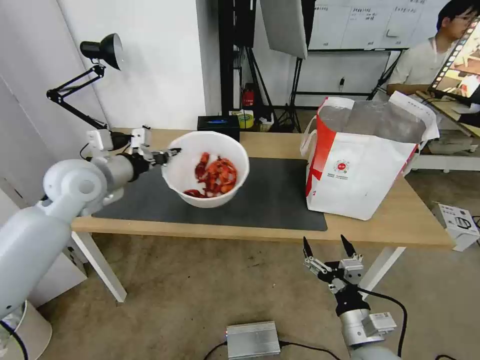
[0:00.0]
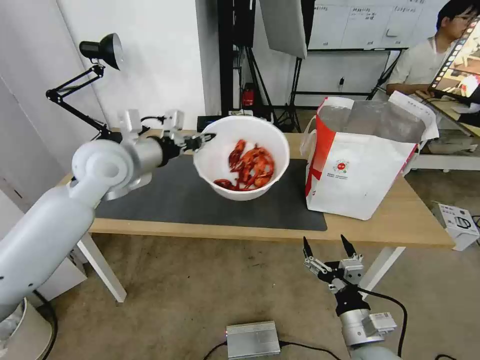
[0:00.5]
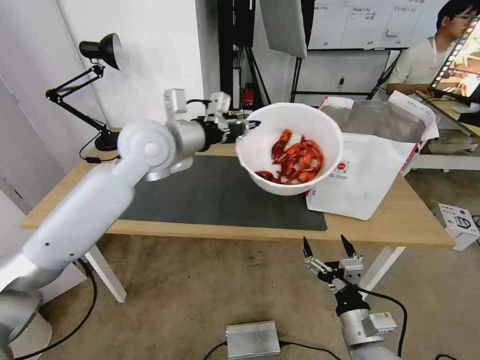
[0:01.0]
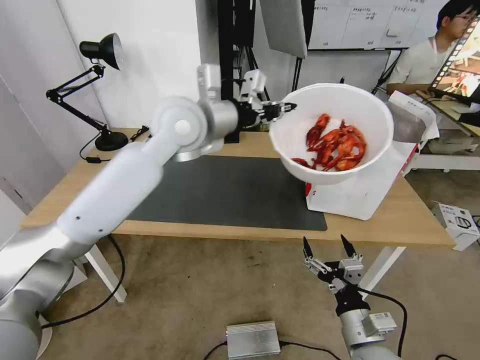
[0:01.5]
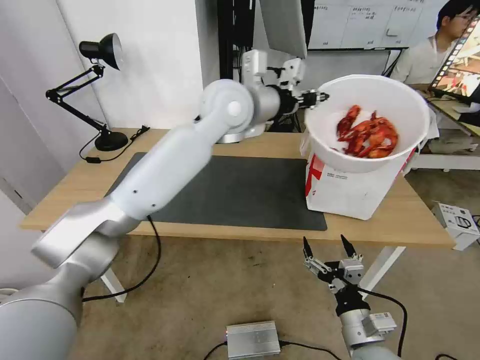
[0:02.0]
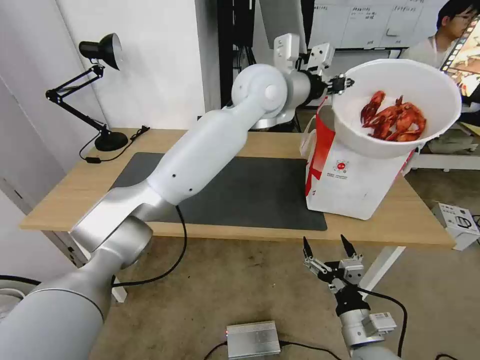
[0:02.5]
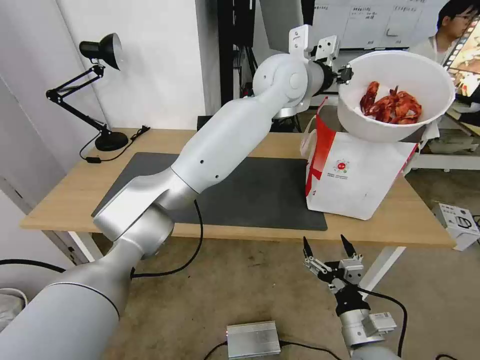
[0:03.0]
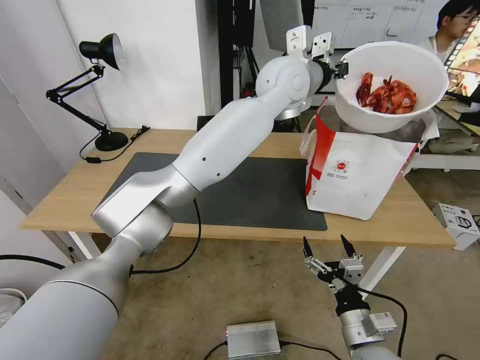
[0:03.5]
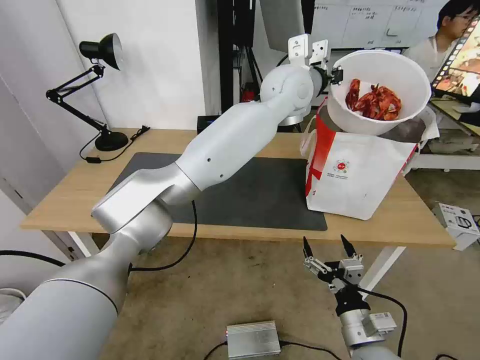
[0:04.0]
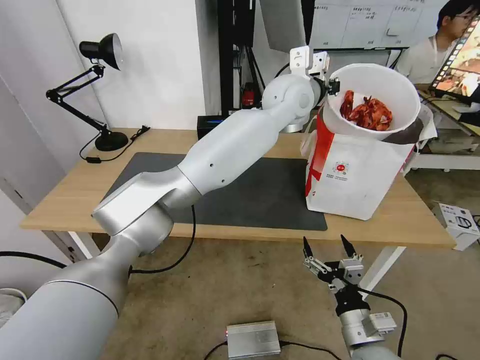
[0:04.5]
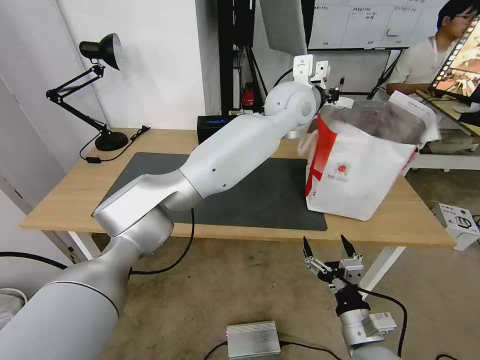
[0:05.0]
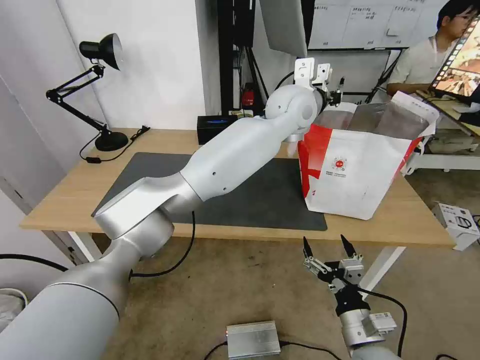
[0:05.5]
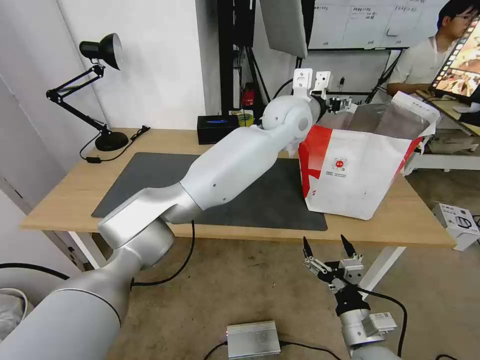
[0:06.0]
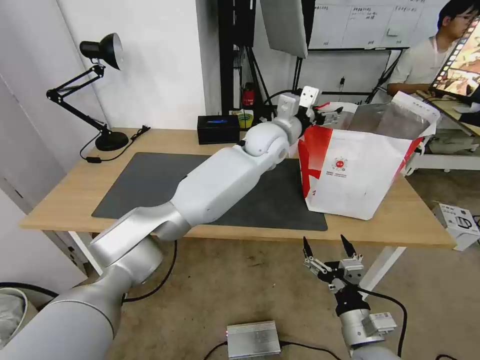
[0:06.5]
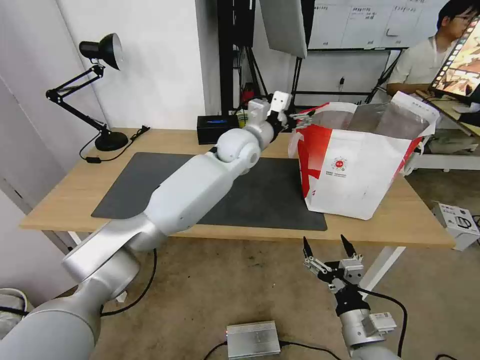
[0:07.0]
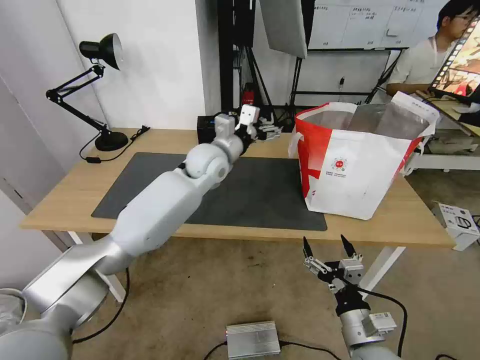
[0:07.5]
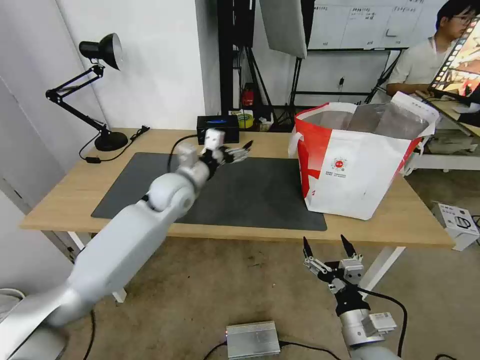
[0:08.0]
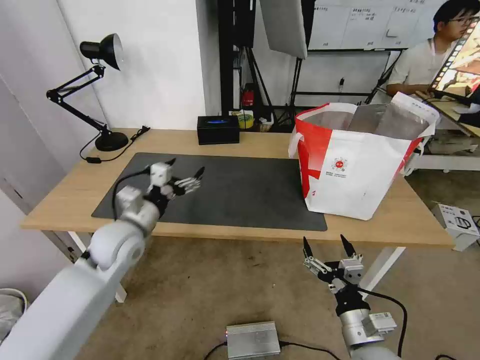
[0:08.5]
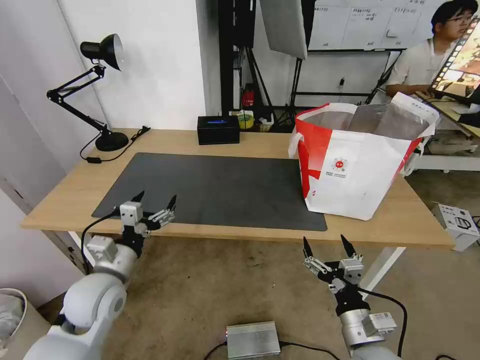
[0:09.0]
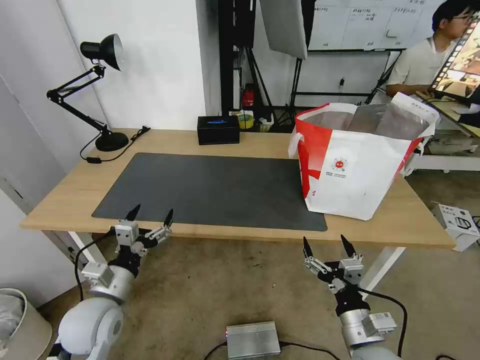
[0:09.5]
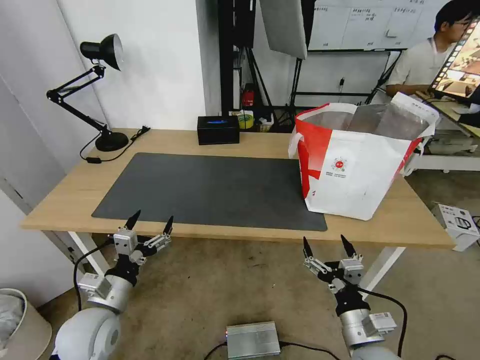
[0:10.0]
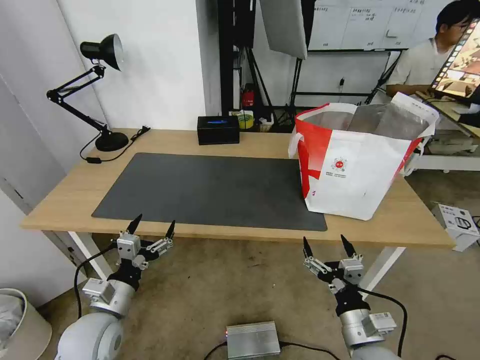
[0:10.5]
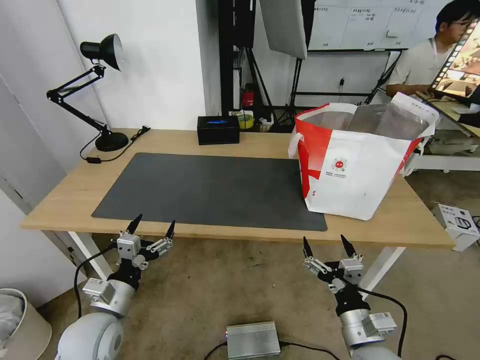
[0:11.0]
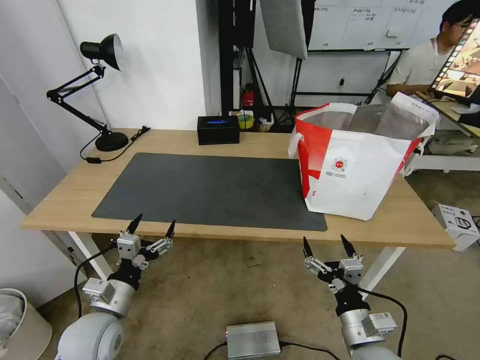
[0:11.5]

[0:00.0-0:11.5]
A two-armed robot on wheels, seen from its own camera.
Task of the whole recording: Pick up the trash from the table and place it into the takeout bag.
0:00.0 to 0:02.0: The left gripper shifts approximately 30 cm to the right and upward.
0:02.0 to 0:04.0: The left gripper goes roughly 10 cm to the right and forward.
0:04.0 to 0:06.0: The left gripper is displaced downward by some 5 cm, and opens.
0:06.0 to 0:07.5: The left gripper travels to the left and downward by about 20 cm.
0:07.5 to 0:09.5: The left gripper heads backward, to the left and downward, covering some 35 cm.
0:09.5 to 0:11.5: There are only small adjustments of the grippers.
